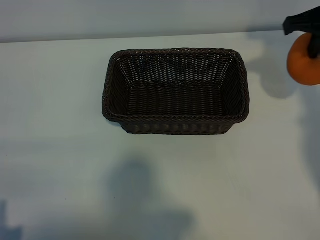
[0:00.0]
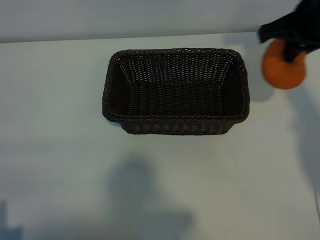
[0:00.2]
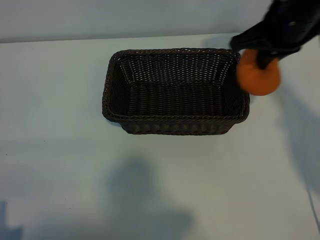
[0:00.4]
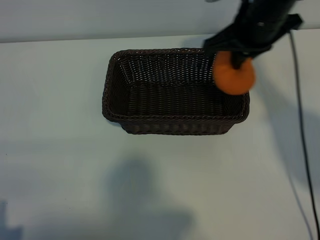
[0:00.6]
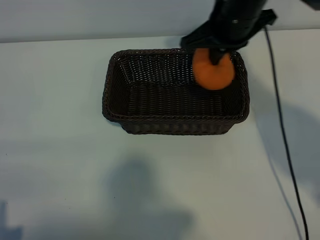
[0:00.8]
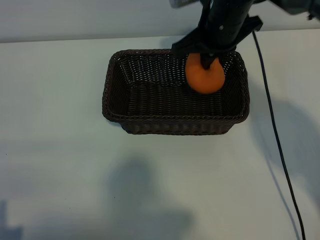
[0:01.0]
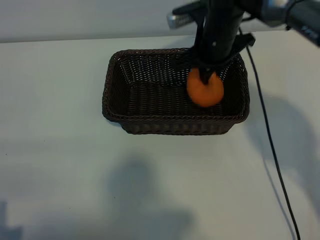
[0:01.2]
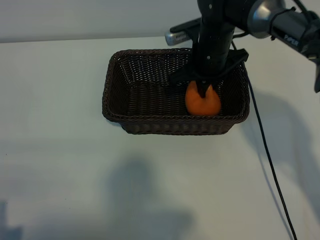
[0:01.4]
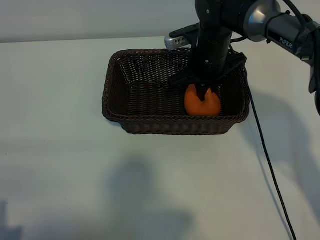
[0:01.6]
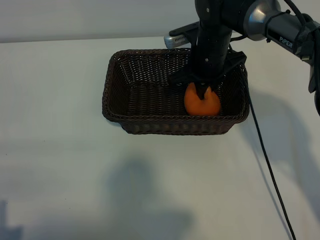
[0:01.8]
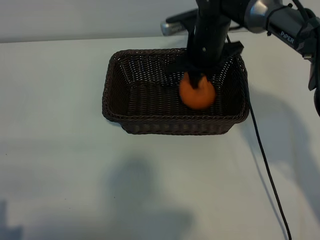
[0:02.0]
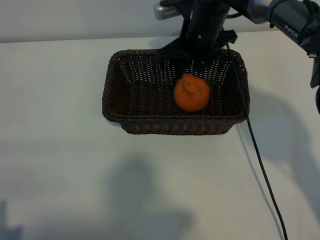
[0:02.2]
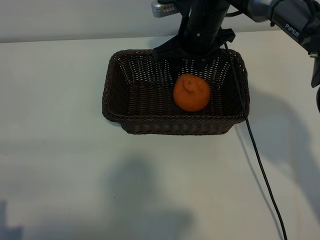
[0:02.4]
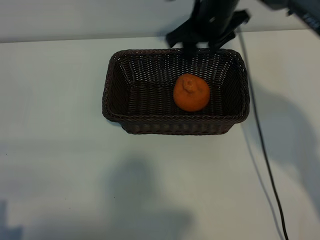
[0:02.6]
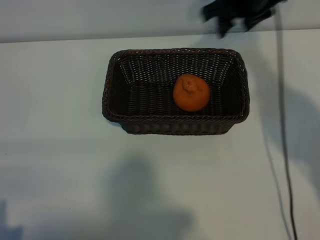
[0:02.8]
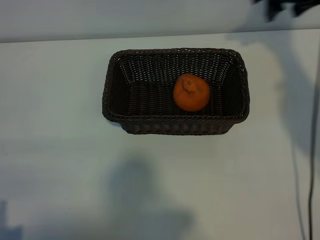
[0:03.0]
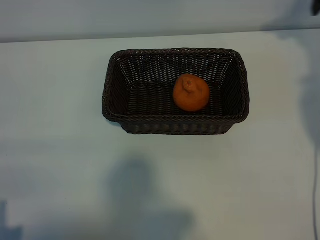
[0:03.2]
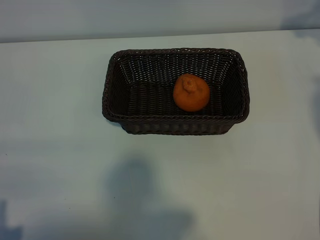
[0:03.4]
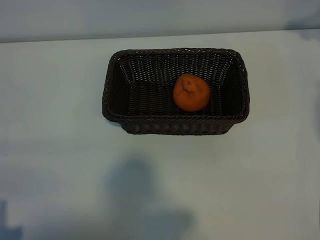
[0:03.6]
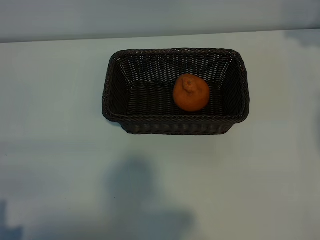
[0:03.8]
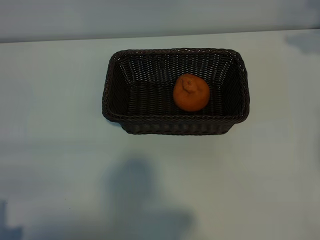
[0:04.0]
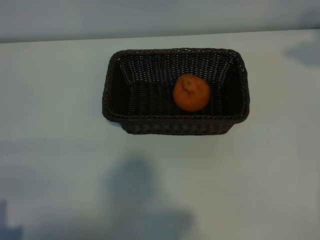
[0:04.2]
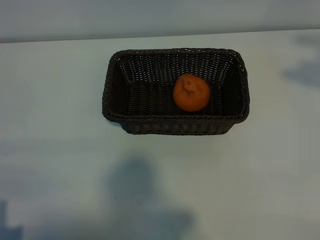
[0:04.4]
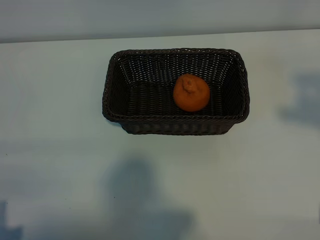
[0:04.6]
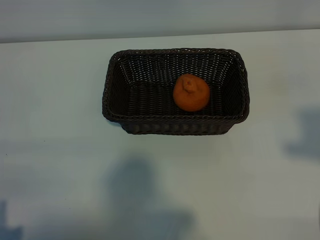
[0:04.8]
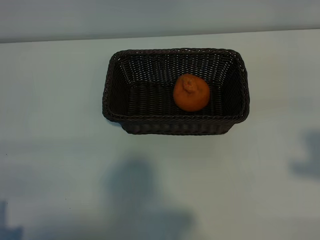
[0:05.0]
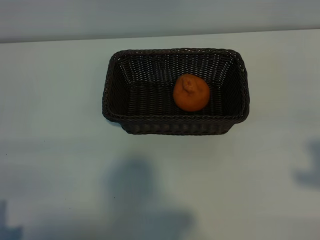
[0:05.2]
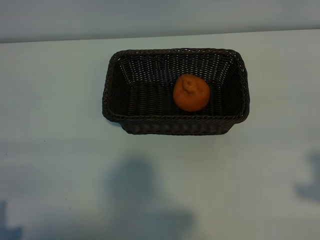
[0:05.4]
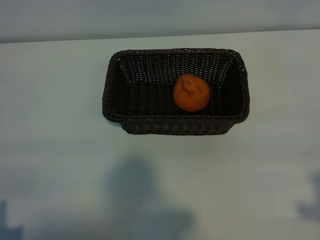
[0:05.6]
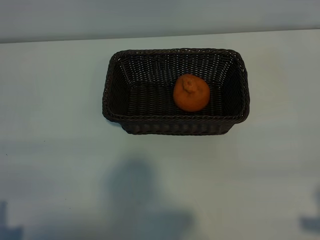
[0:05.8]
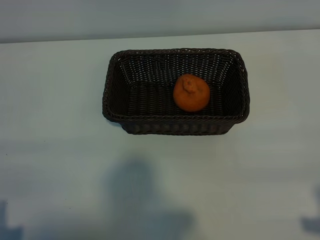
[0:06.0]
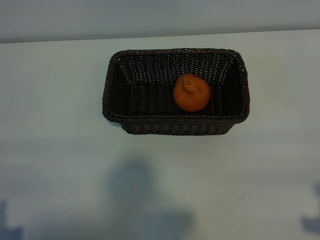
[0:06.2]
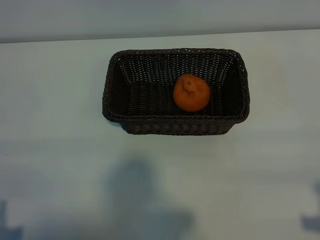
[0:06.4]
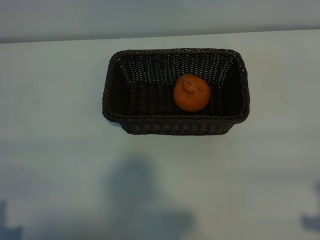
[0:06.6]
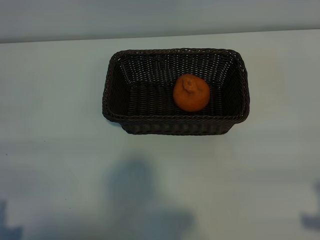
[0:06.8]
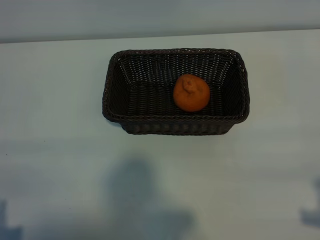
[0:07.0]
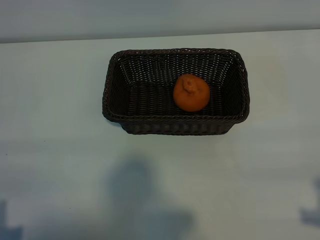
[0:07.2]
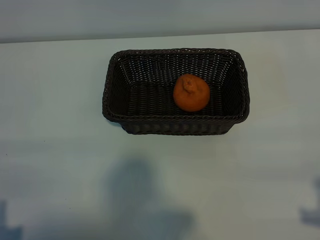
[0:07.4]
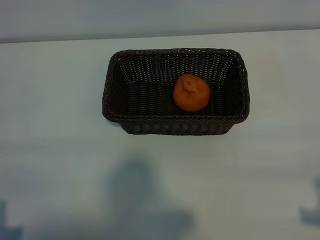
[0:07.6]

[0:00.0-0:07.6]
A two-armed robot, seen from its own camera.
Task of the whole recording: pick up the orange and put it into the basket.
Step, 0:00.0 to 0:02.0: Place the orange in the basket with right gripper.
